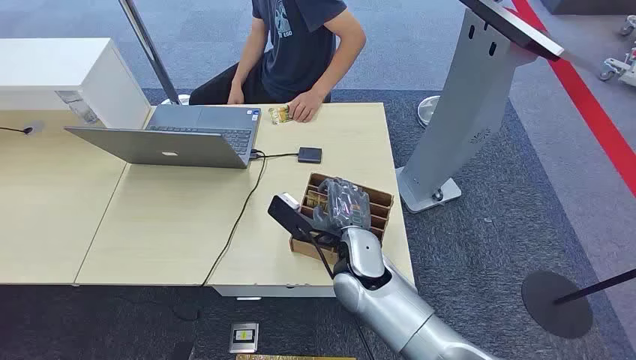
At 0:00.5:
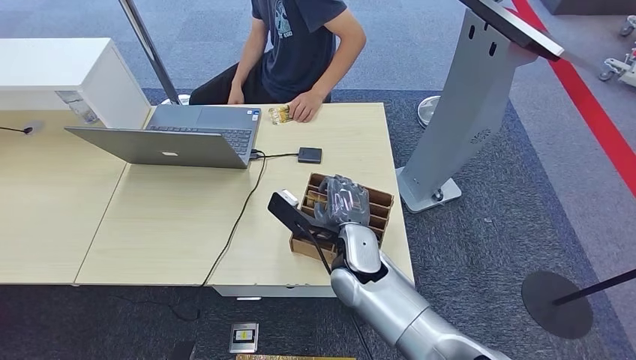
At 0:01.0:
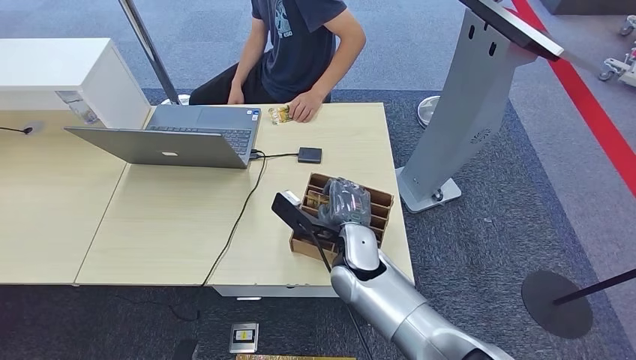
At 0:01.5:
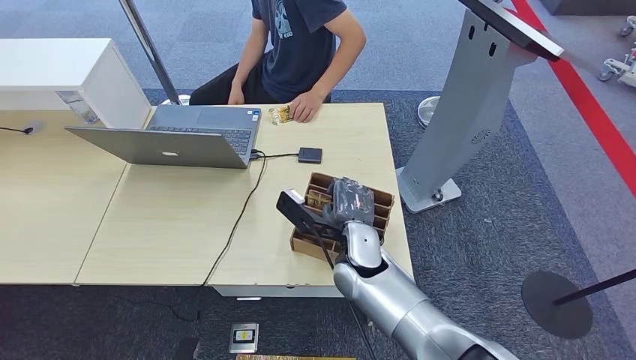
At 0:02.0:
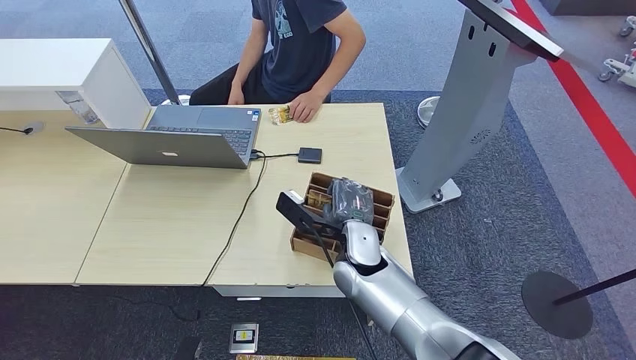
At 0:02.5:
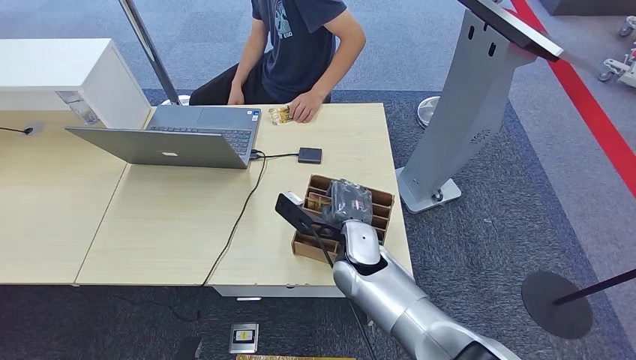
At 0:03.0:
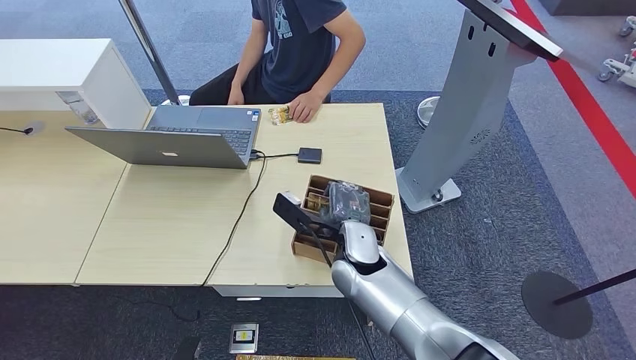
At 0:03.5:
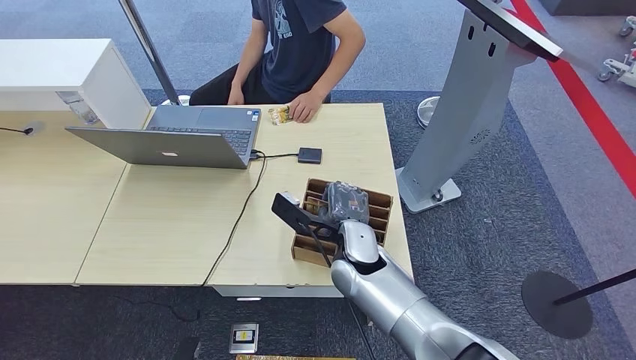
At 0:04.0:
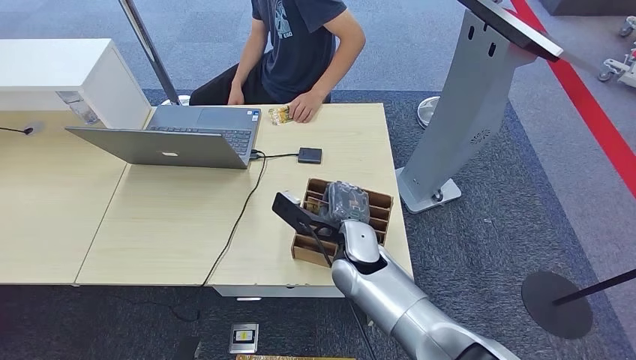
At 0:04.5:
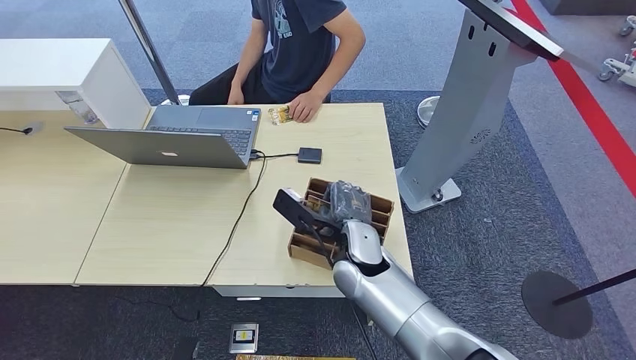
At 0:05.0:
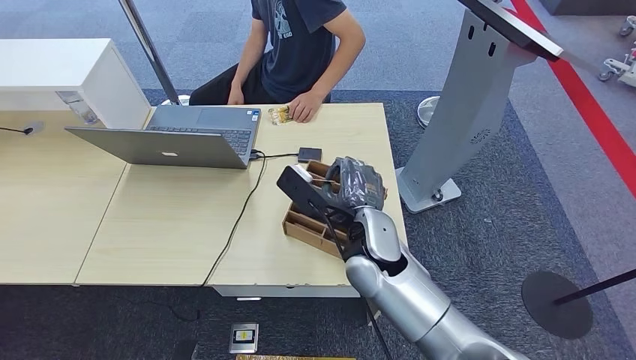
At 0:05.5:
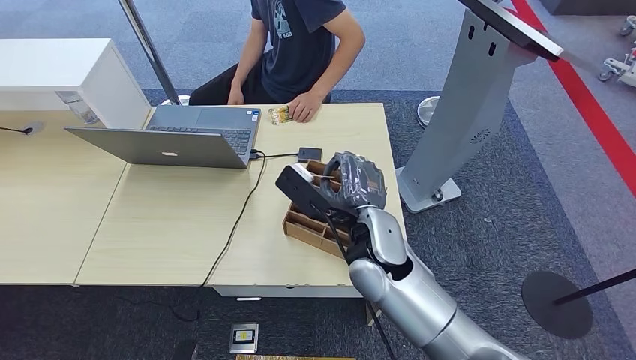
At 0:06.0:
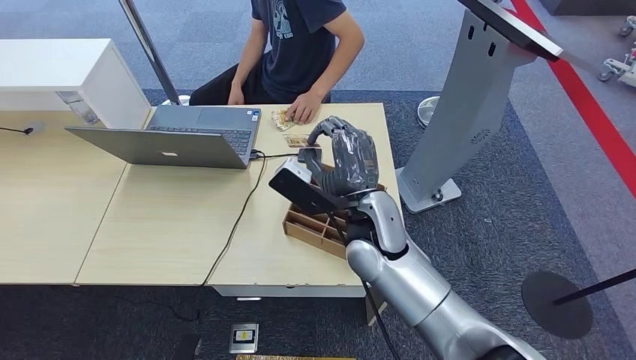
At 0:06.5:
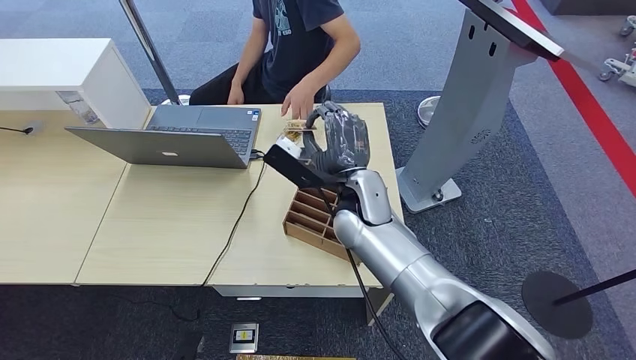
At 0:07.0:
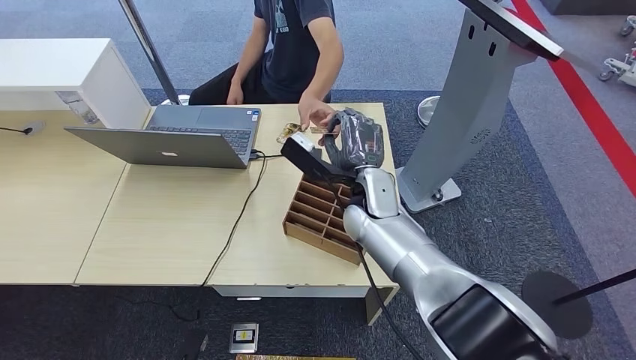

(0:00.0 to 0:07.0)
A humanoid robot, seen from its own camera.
Step, 0:00.0 - 0:05.0: Pick up the key card from the card box.
Step, 0:05.5 - 0:07.0: Hand the key card to the target.
0:02.0 - 0:03.5: The two hands keep their place.
0:03.5 - 0:05.0: The right hand goes approximately 5 cm upward.
0:05.0 - 0:07.0: The right hand shifts roughly 10 cm forward.
